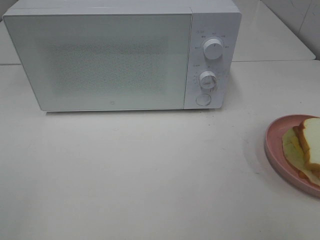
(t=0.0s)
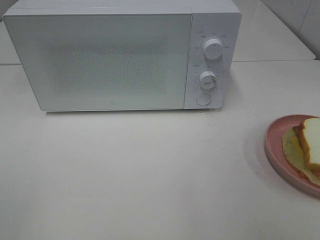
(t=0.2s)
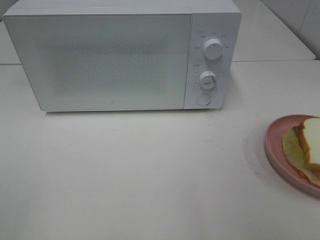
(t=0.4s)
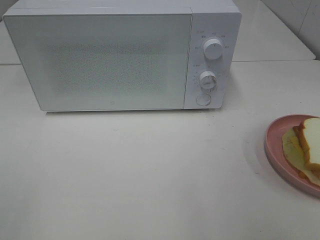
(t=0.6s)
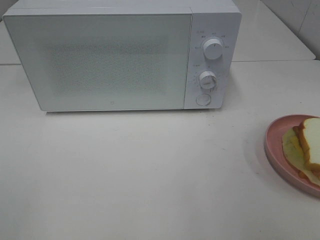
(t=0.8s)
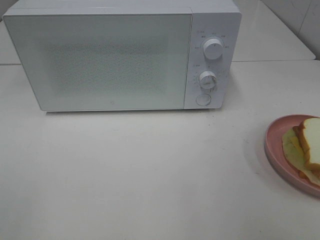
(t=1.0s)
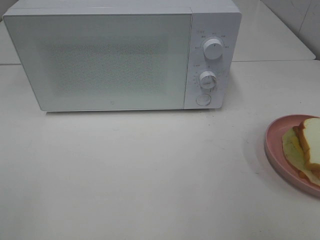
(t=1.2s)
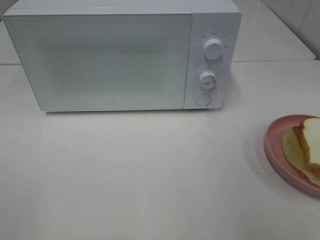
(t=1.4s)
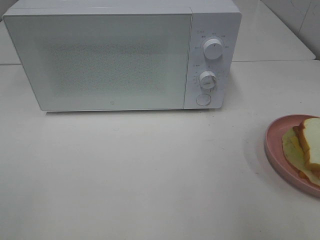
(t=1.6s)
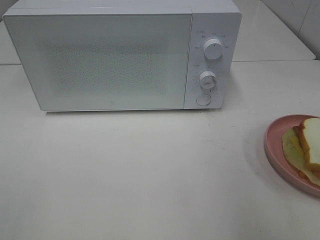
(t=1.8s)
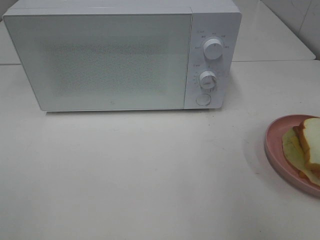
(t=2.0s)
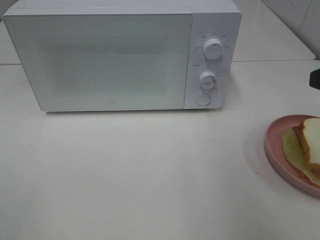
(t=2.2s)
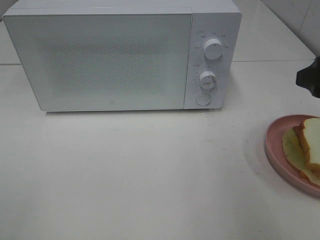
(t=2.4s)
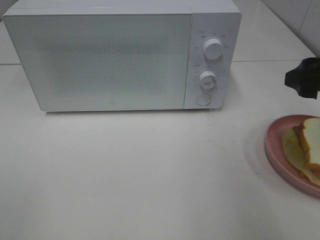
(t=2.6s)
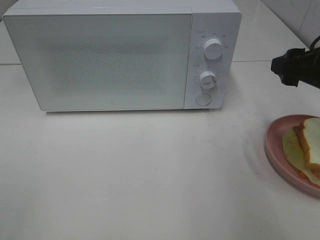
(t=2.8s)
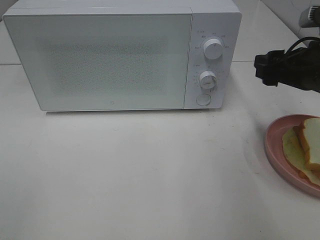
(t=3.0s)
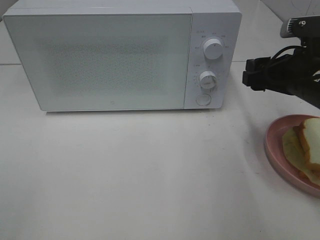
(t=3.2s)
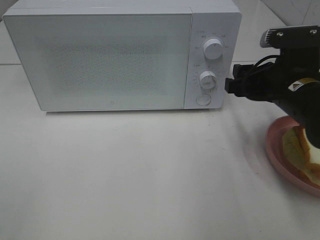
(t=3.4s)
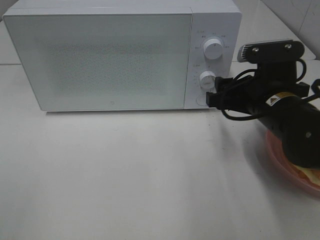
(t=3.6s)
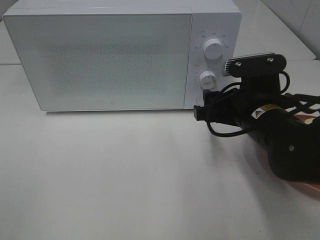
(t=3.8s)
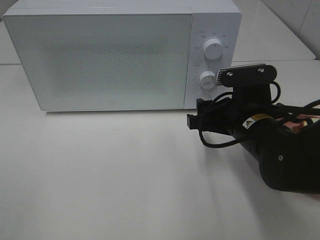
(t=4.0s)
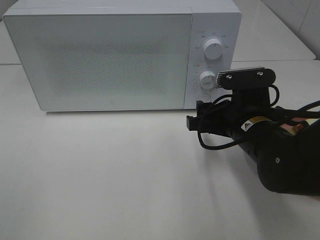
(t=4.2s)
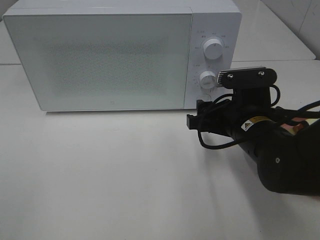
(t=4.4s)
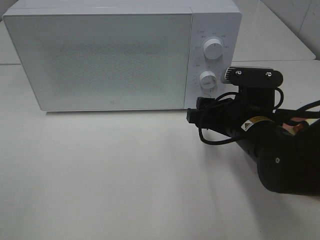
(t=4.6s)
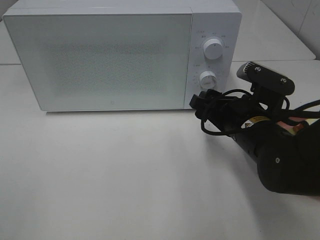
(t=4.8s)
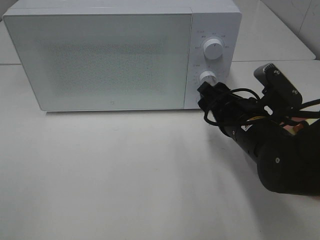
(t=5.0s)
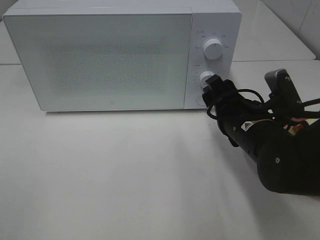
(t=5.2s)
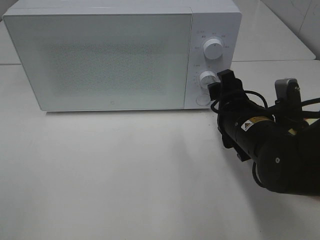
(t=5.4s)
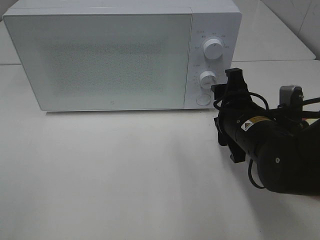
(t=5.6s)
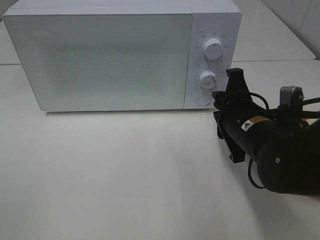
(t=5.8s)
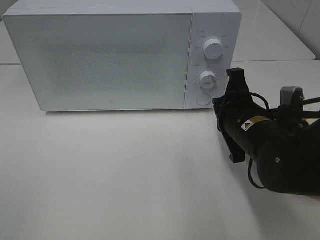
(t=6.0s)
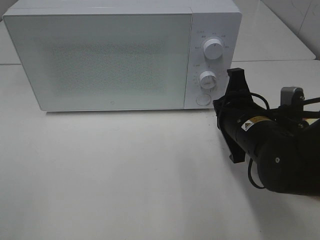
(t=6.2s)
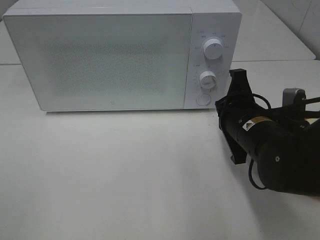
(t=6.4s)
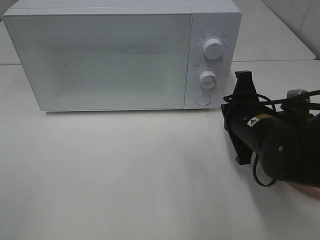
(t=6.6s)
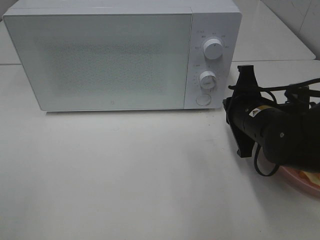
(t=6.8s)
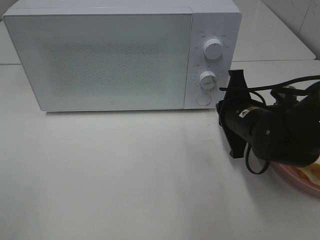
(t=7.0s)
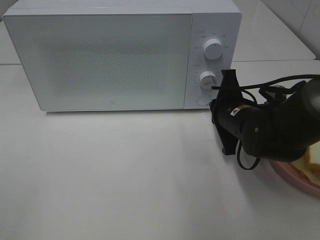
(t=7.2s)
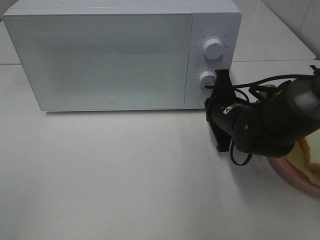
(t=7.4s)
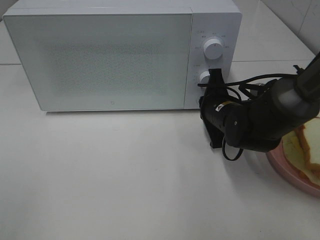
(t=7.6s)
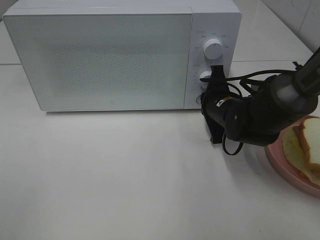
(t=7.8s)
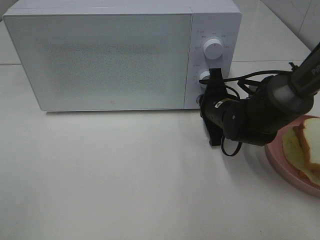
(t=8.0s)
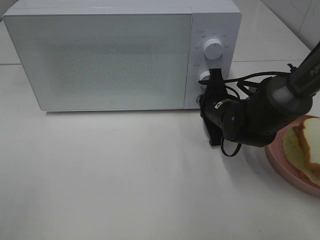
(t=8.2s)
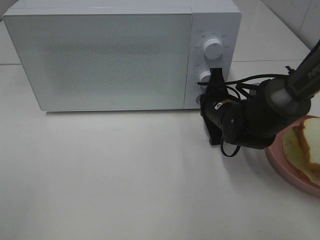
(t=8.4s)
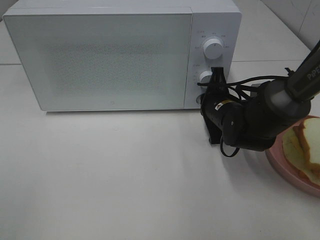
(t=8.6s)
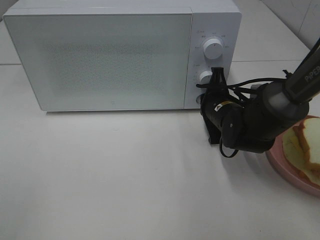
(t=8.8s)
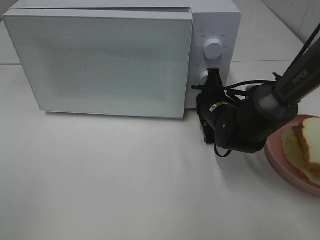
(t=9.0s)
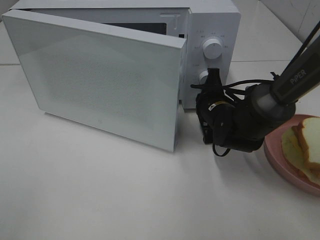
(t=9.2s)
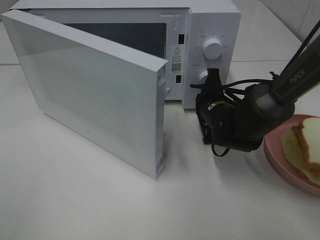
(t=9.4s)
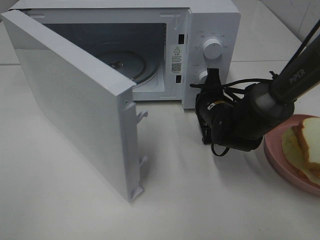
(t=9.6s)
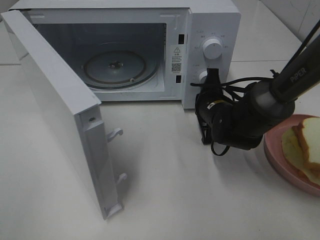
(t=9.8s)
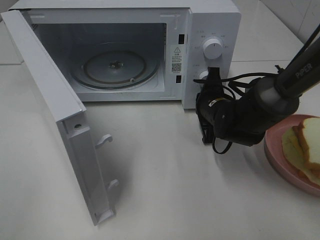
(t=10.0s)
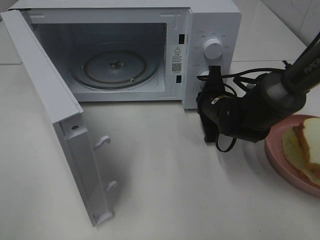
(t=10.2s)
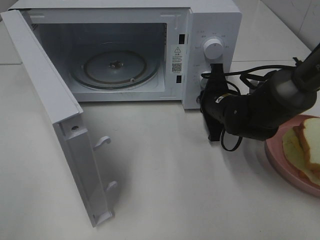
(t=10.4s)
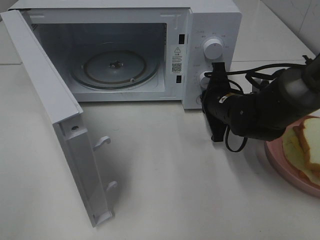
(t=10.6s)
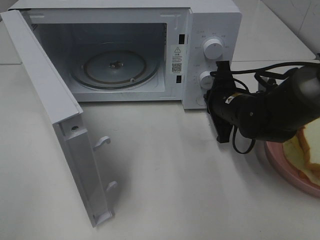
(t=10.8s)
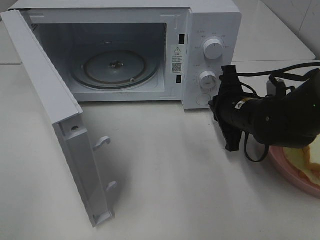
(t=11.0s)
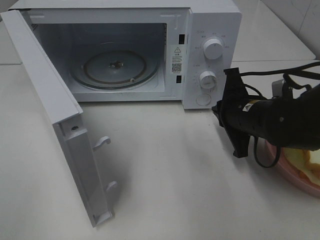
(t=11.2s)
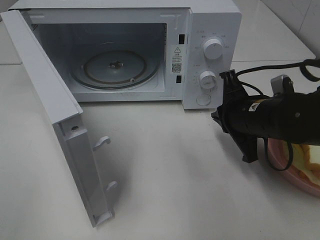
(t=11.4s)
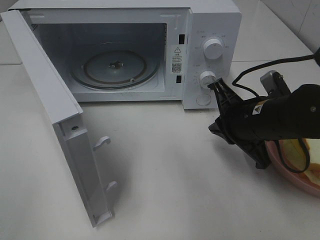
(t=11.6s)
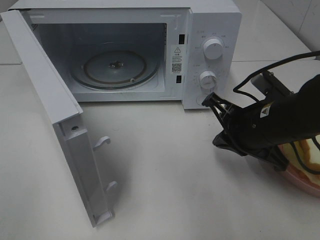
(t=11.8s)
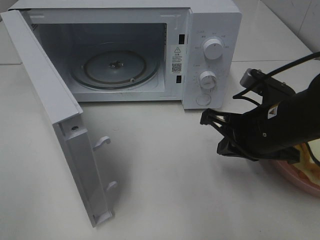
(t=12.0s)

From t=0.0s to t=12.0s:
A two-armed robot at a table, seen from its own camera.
Task of the whole recording: Heat Sandwich.
Step, from t=0.0s to t=10.8s: Right hand: press the switch.
From t=1.6s to t=3.0s: The right gripper moves forward and downward, roughly 20 cm.
From t=3.0s to t=4.4s: The right gripper moves to the left and downward, roughly 10 cm.
From t=4.4s to t=6.0s: The right gripper closes its fingers.
From t=6.0s to t=7.6s: The right gripper travels forward by some 10 cm.
From t=7.6s to t=9.0s: There are only small adjustments of the grippers.
From t=10.4s to t=12.0s: The right gripper travels backward and upward by some 15 cm.

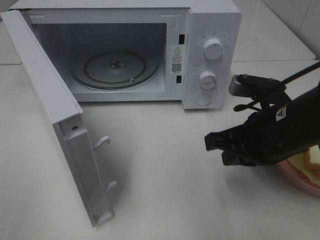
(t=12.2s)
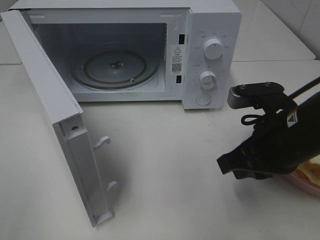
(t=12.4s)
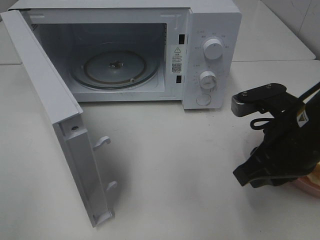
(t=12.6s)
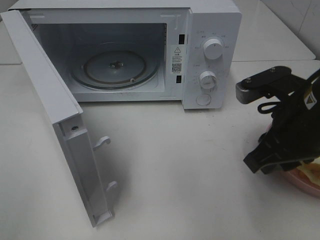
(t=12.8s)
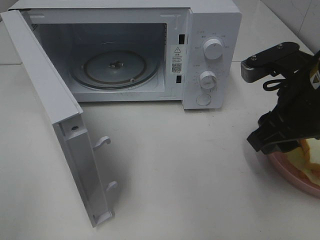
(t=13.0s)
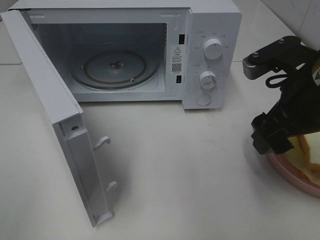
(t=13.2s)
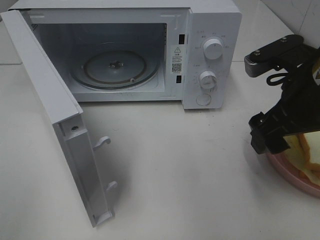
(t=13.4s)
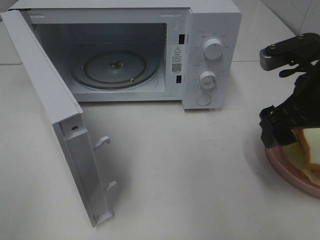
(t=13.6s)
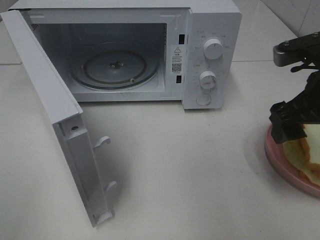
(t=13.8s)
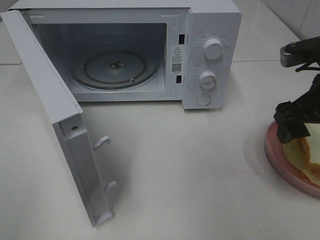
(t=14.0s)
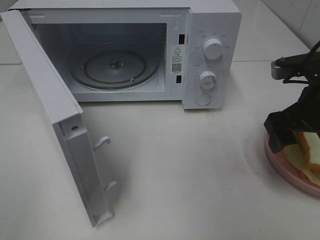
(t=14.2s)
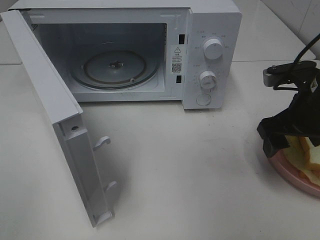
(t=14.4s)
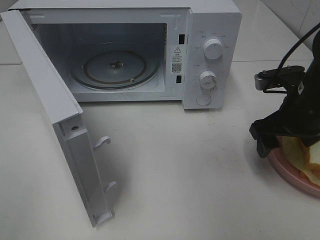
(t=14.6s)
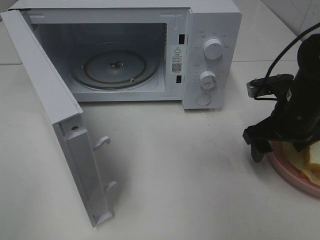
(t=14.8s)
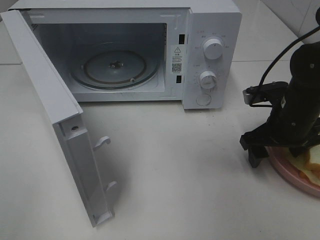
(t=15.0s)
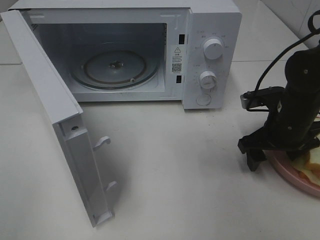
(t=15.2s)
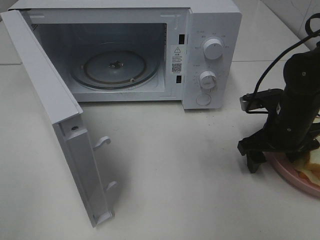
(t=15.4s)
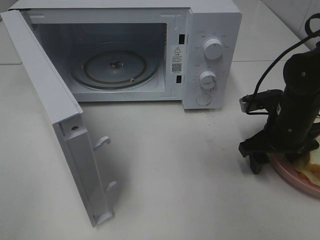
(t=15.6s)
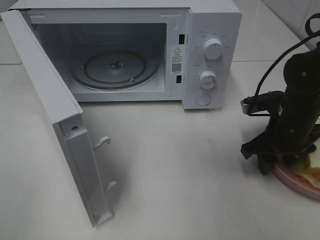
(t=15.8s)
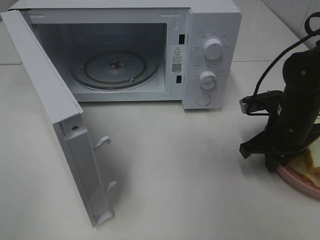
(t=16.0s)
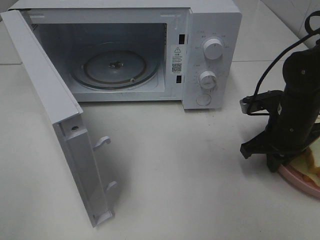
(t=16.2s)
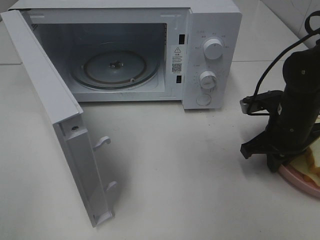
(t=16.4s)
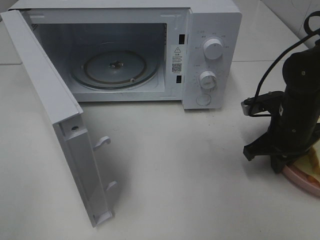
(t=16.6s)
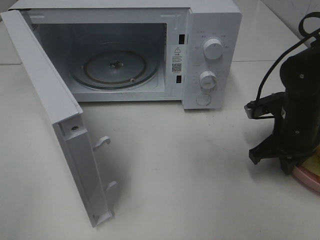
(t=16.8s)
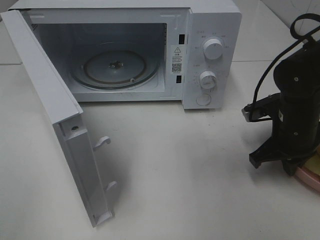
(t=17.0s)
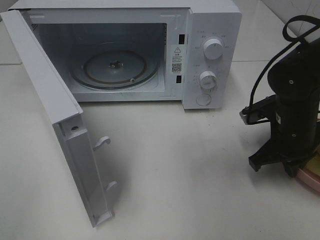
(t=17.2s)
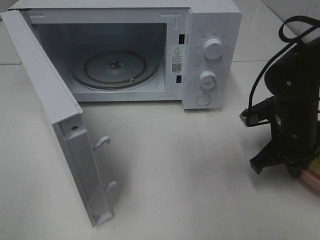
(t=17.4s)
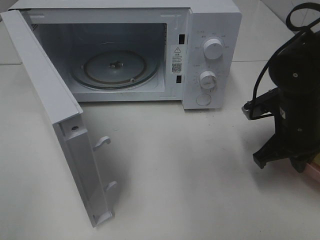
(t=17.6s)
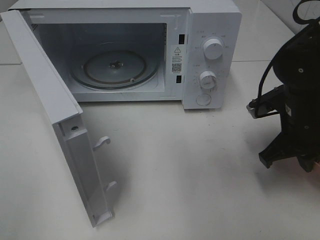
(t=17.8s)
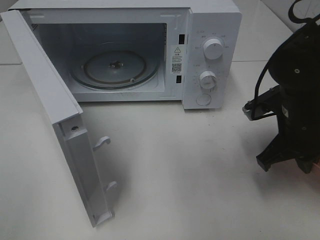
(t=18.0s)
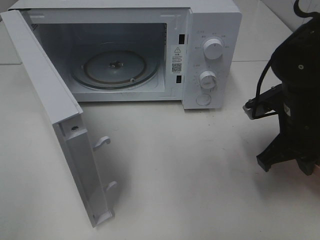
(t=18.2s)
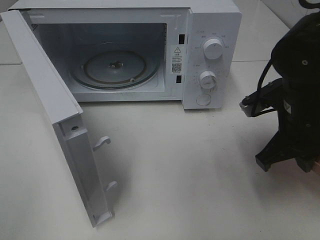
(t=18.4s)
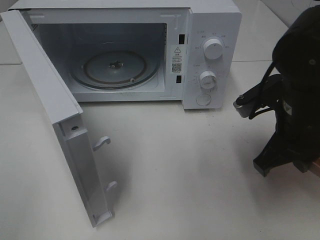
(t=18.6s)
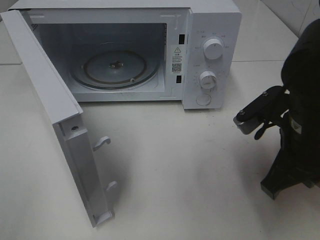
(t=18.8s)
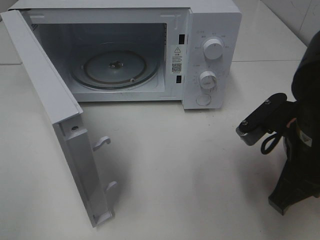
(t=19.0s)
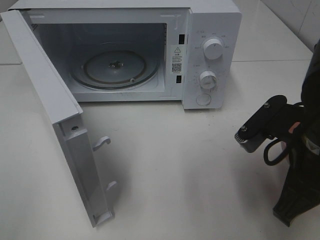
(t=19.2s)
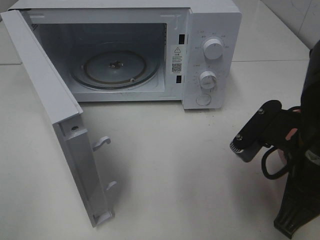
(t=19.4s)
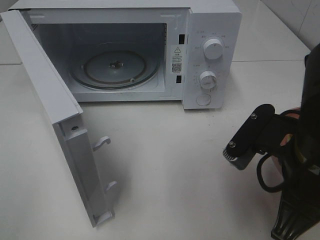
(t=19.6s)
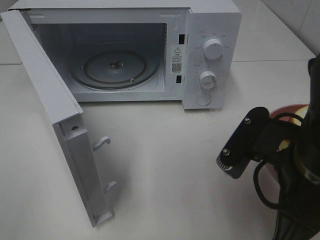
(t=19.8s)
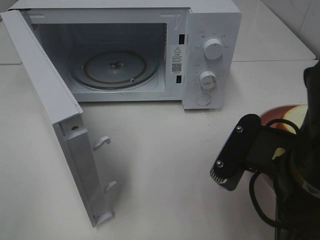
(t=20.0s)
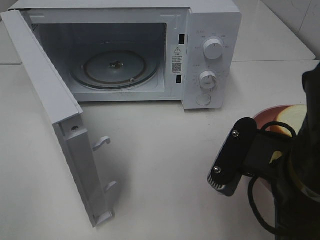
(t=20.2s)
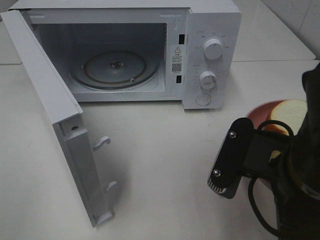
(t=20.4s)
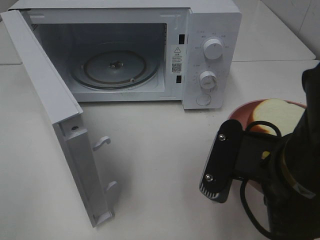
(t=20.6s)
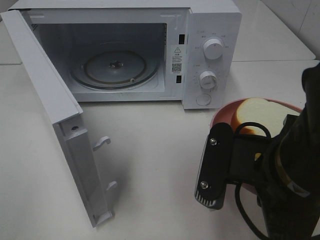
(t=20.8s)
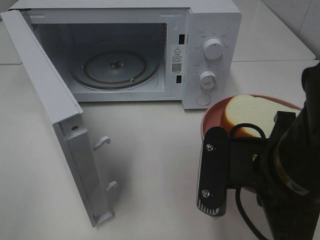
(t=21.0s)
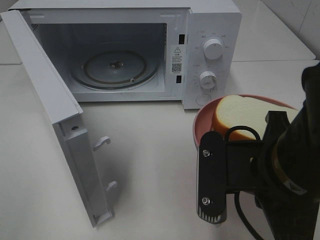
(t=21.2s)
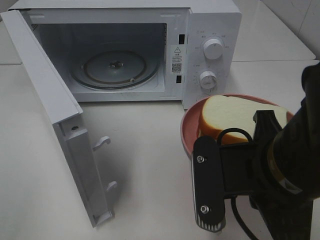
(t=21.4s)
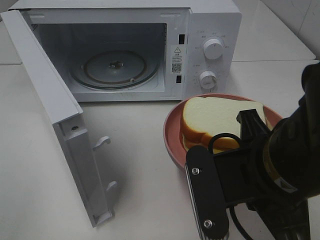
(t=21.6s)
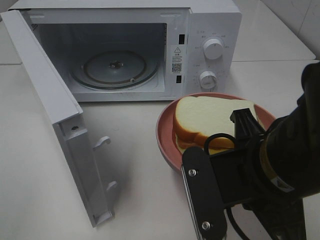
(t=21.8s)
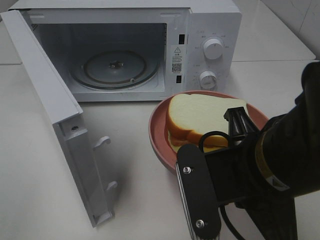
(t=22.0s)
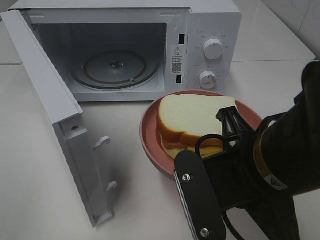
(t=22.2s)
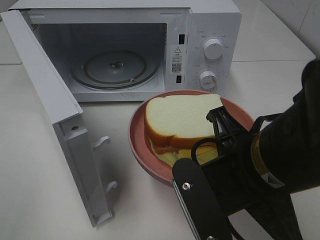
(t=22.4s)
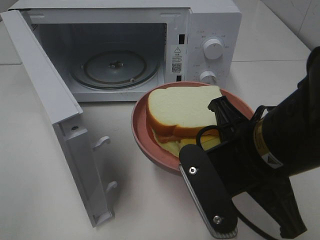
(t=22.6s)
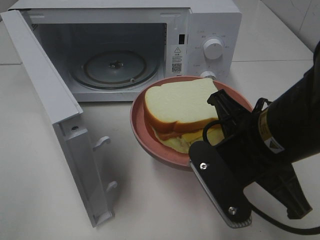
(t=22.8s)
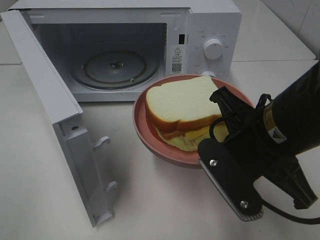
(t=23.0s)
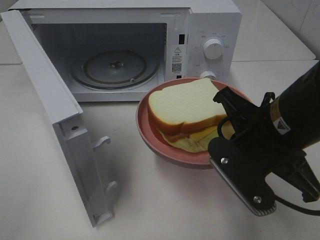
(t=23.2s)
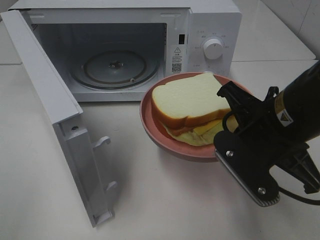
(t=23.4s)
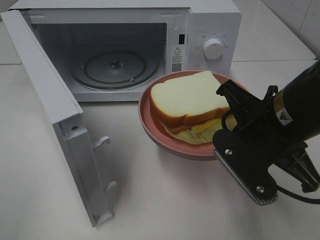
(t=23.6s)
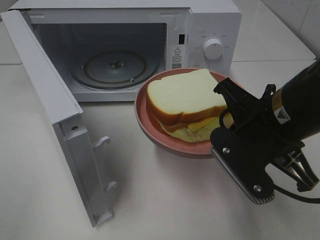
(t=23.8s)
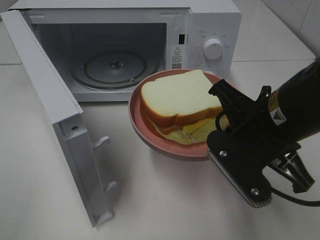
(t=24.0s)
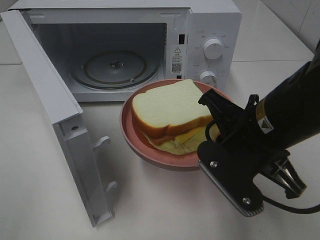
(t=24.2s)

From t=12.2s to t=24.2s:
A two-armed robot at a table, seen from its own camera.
Task of the whole recording: Heat Sandwich.
Step, from t=12.2s to t=16.2s: Right hand: grab the plate with the sandwich.
From t=12.2s to t=13.8s: The right gripper shifts some 10 cm upward and to the right, and opens its fingers.
From t=13.8s to t=15.2s: The right gripper travels downward and forward by about 15 cm.
From t=15.2s to t=16.6s: The right gripper closes up.
From t=16.6s to t=18.2s: The right gripper changes place by roughly 5 cm.
From t=18.2s to t=19.8s: The right gripper heads backward and to the left, covering about 15 cm.
From t=22.6s to t=24.2s: The grippers stay close to where they were, moving slightly.
